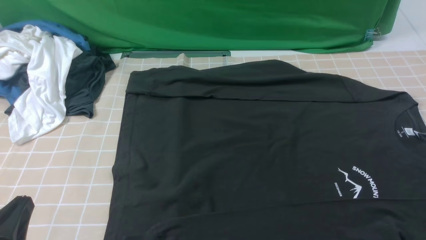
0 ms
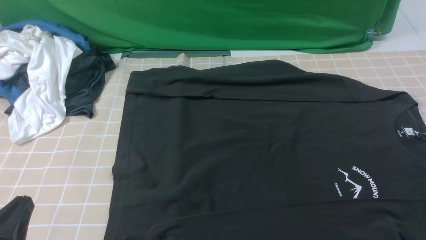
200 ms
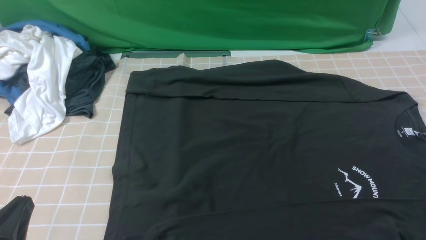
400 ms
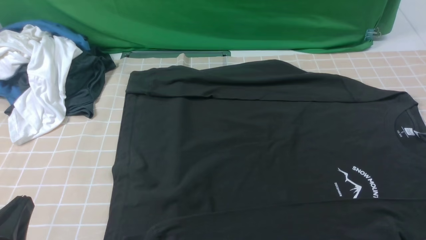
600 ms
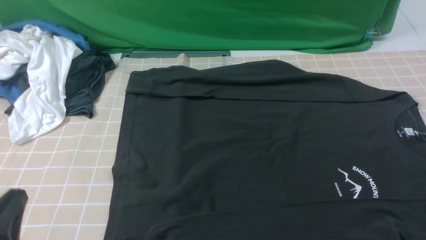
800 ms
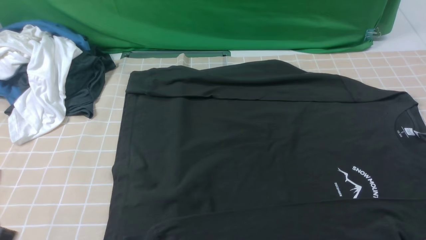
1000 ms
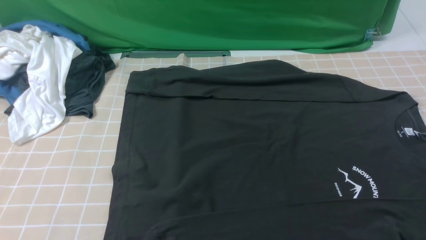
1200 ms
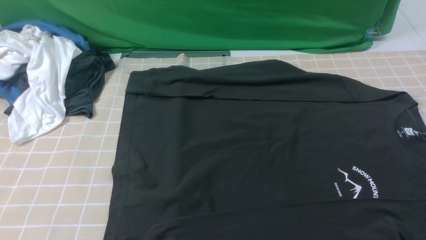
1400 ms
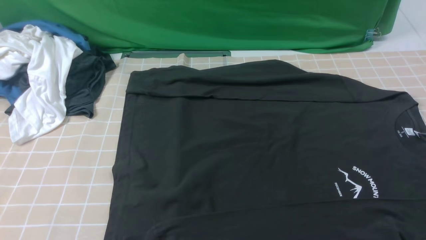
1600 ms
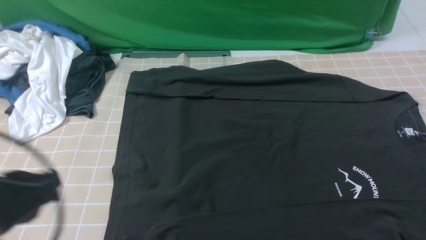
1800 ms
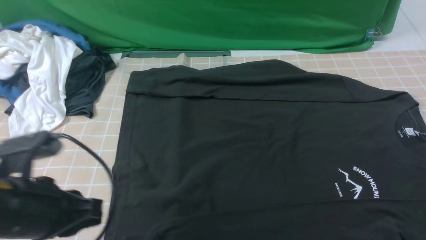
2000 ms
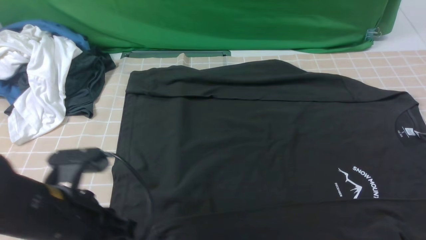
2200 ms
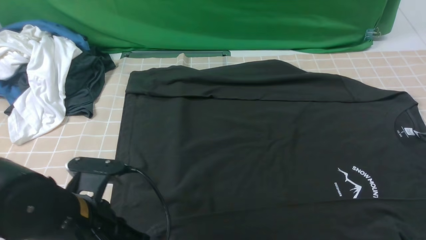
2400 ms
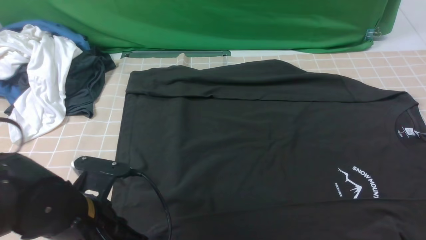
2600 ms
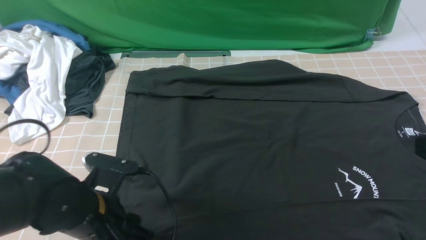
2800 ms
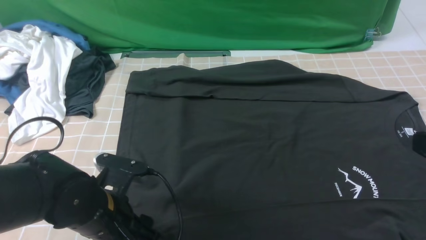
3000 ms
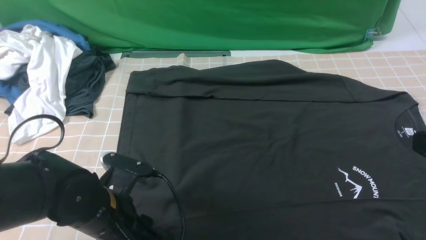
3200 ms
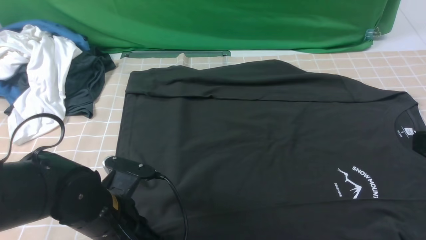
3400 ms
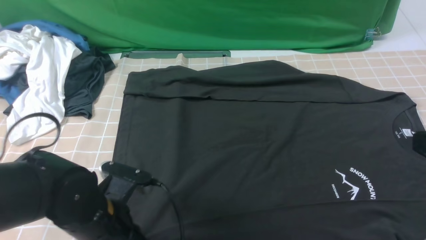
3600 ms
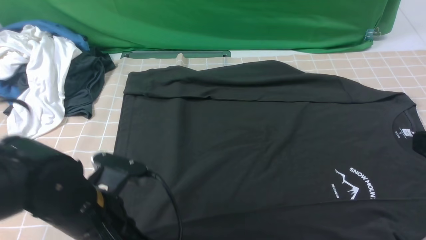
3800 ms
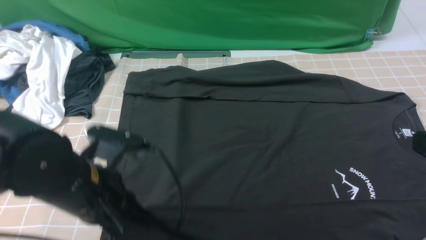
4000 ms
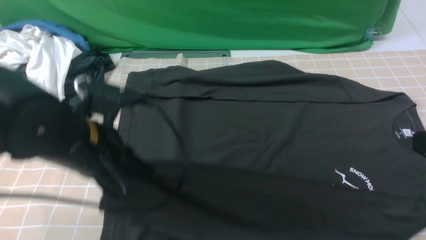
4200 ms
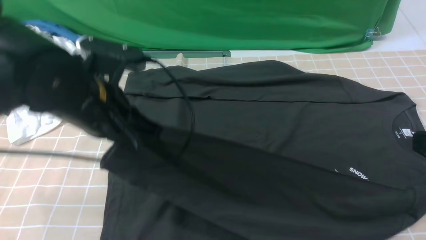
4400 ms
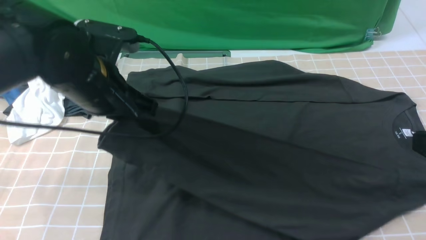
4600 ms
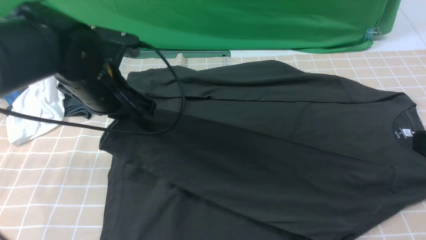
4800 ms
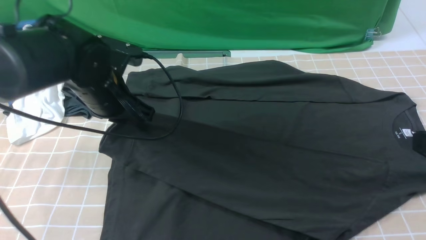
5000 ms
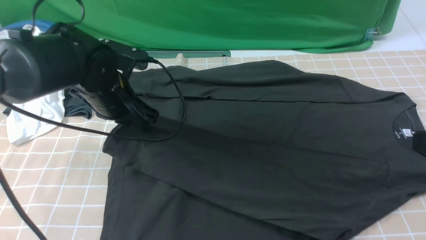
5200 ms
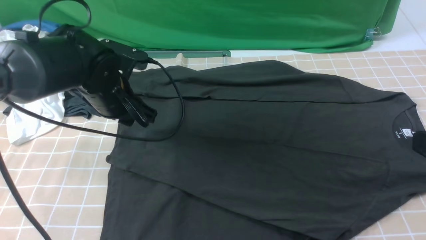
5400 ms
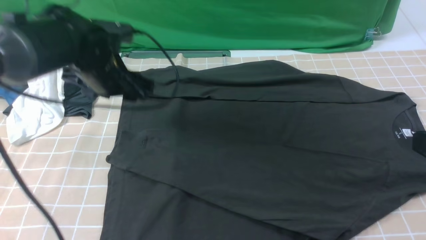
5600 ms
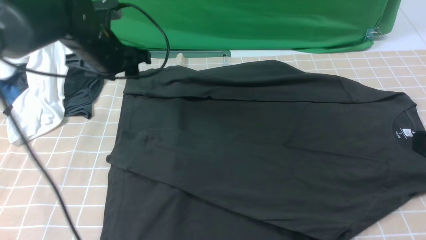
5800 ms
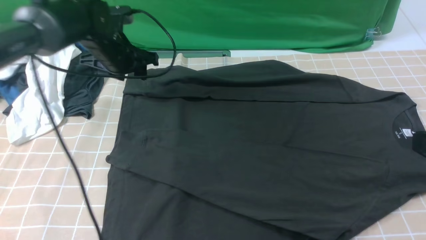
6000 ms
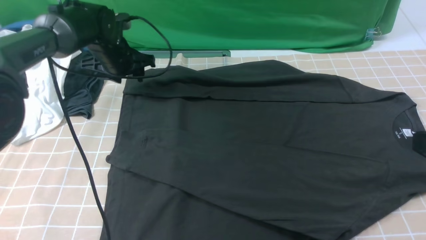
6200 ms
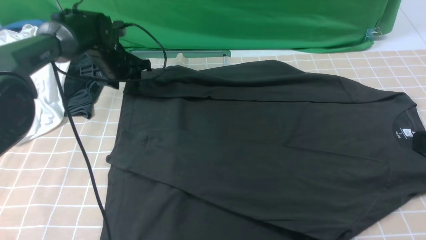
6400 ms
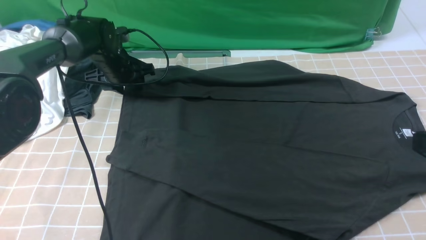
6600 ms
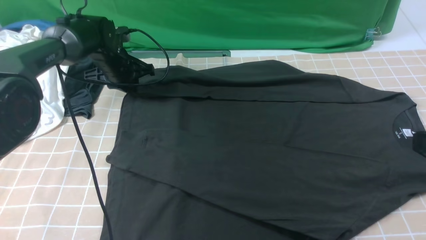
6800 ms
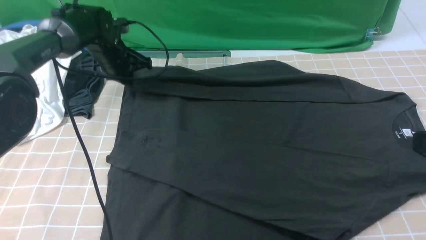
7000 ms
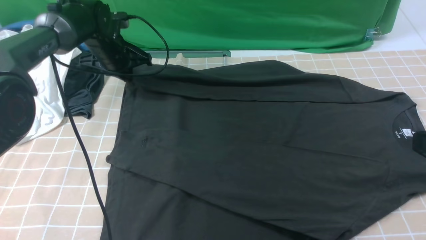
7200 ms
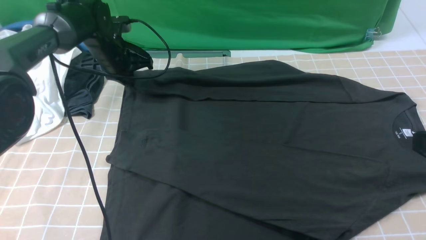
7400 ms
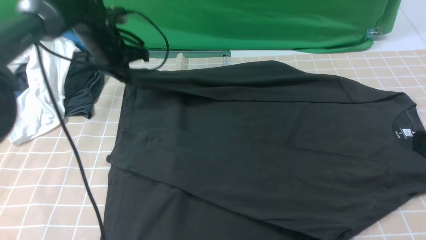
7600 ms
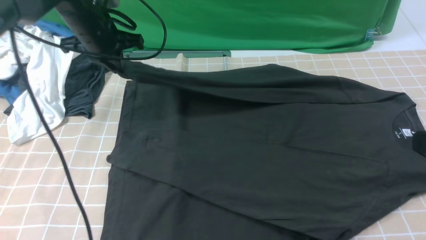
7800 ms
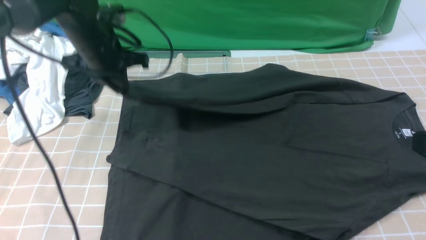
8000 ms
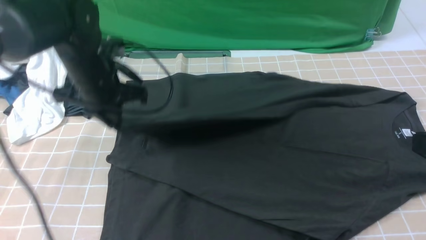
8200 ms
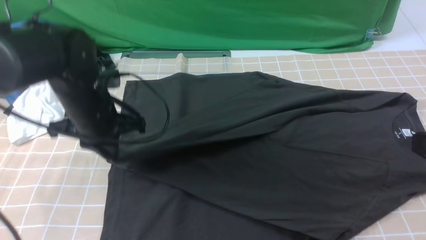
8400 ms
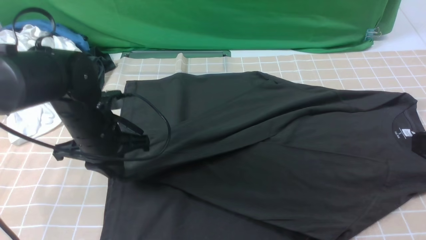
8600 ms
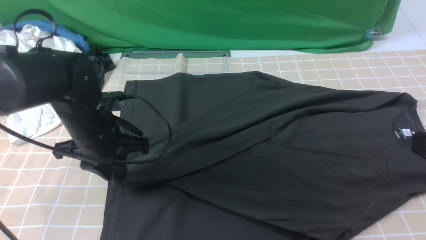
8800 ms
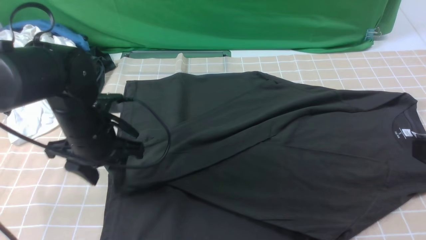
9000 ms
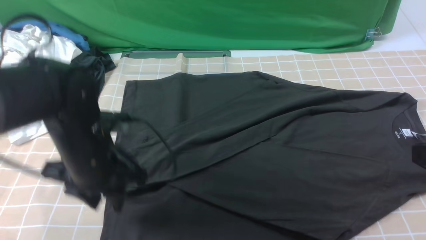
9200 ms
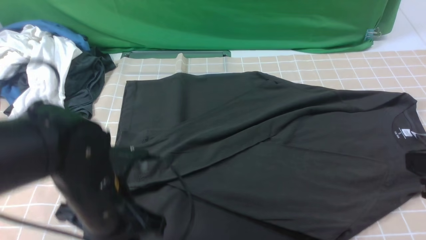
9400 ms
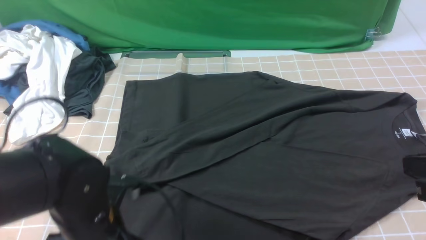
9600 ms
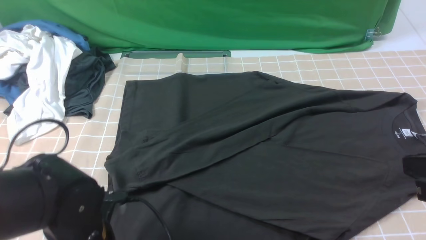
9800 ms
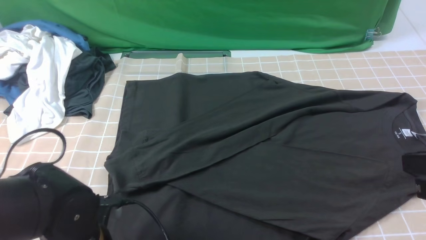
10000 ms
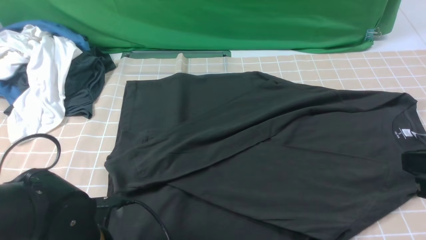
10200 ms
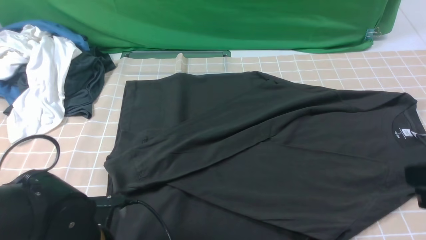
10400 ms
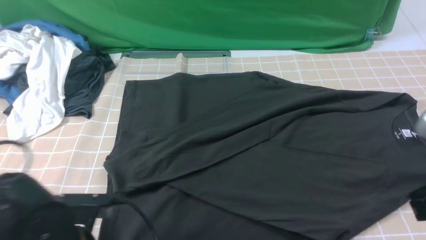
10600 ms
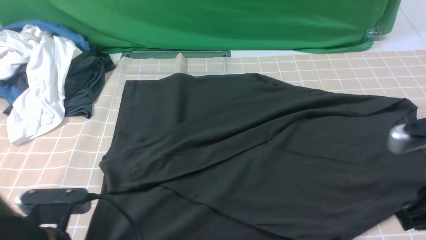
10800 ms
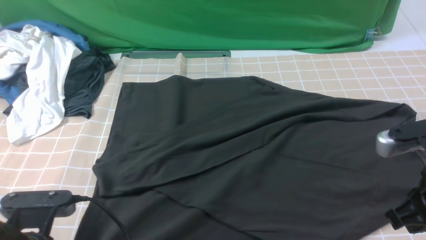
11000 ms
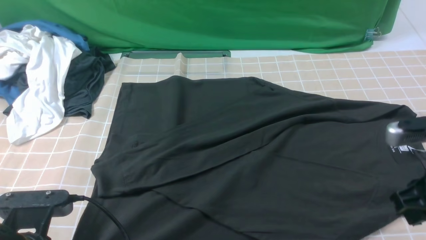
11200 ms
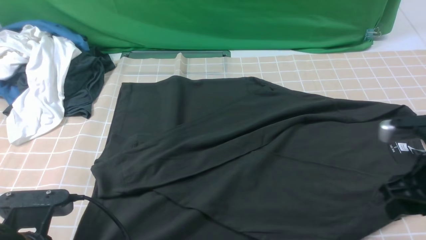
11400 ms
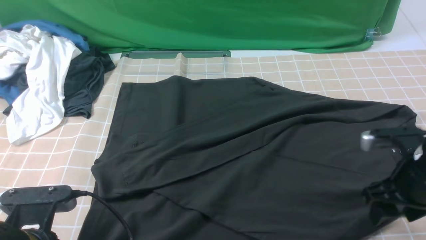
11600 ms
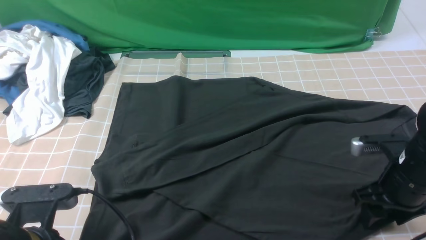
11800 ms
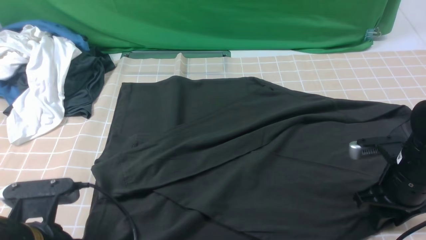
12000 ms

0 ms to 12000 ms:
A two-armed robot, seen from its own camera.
Step, 0 ms to 3800 ms: use the left arm to clamp the cuff closest to it.
Step, 4000 ms to 5400 ms: use the left arm to drag and place the cuff at the centered position on the left edge of the fabric.
Step, 5600 ms to 7000 ms: use the left arm to clamp the cuff farthest from it.
Step, 7200 ms to 9000 ms: use the left arm to drag and drop the cuff onto the cuff closest to the left arm.
0 ms to 1600 ms: The left gripper goes some 10 cm upward.
1600 ms to 3000 ms: The left gripper travels downward, forward and to the right by about 20 cm, and opens its fingers.
3000 ms to 4400 ms: The left gripper is displaced upward and forward by roughly 15 cm, and closes up.
4400 ms to 6000 ms: The left gripper moves forward, some 20 cm, and opens its fingers.
6000 ms to 7600 ms: The left gripper closes.
7600 ms to 9000 ms: The left gripper travels backward by approximately 20 cm, and opens its fingers.
9000 ms to 10400 ms: The left gripper travels backward by about 15 cm, and closes.
10400 ms to 12000 ms: The right gripper moves downward and forward, some 20 cm, and opens, while the left gripper shifts approximately 5 cm upward.

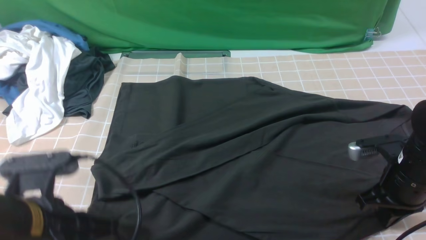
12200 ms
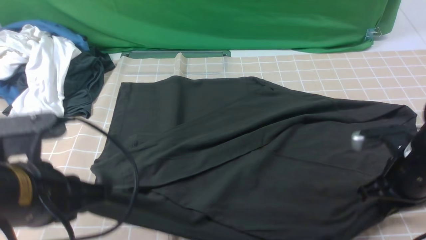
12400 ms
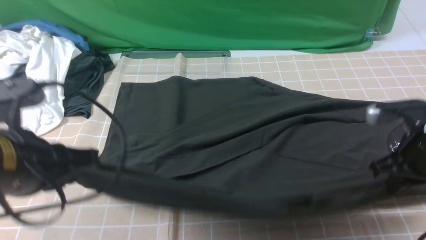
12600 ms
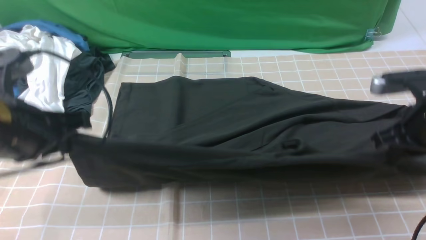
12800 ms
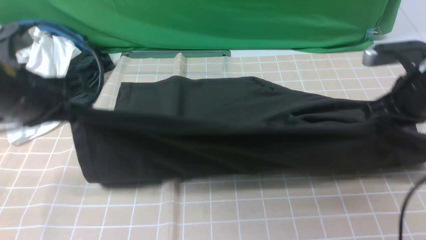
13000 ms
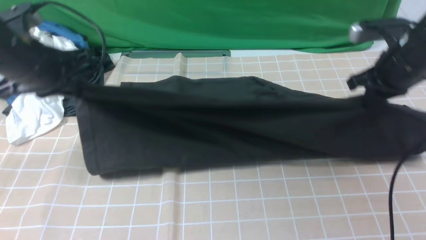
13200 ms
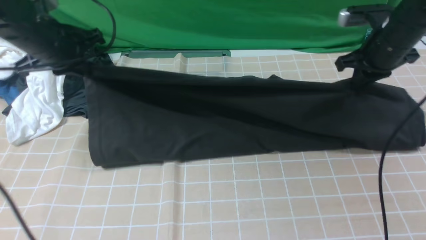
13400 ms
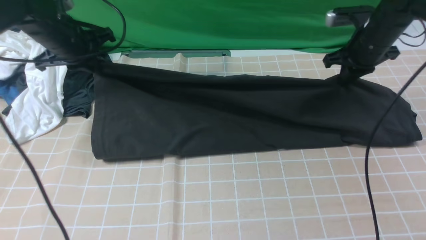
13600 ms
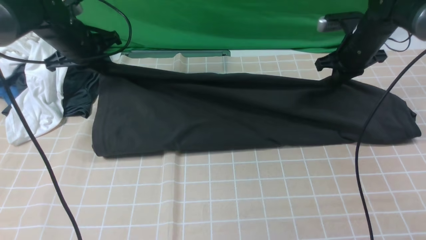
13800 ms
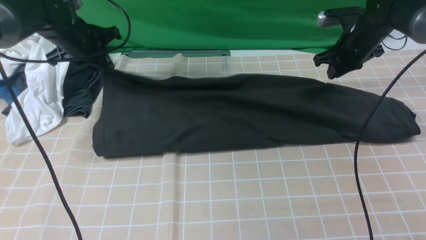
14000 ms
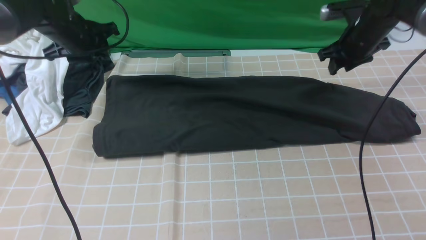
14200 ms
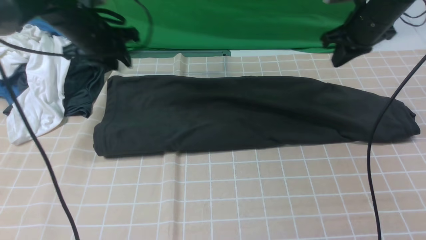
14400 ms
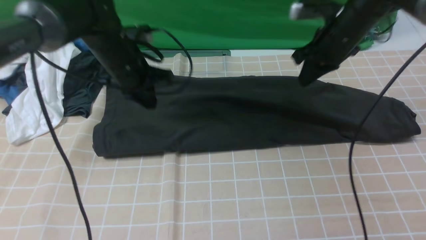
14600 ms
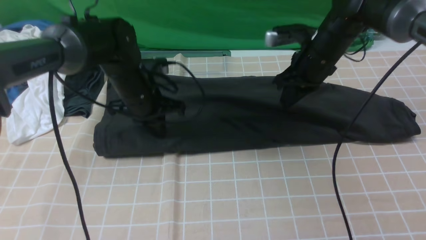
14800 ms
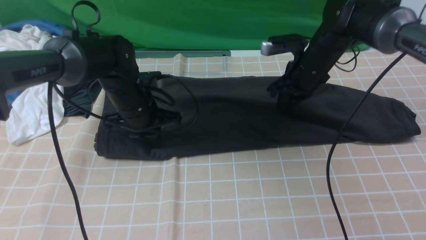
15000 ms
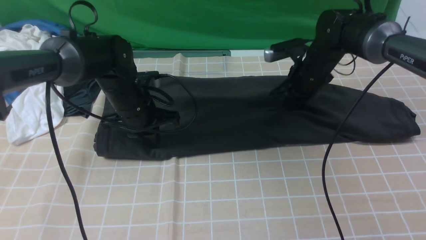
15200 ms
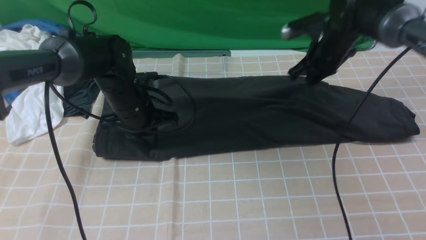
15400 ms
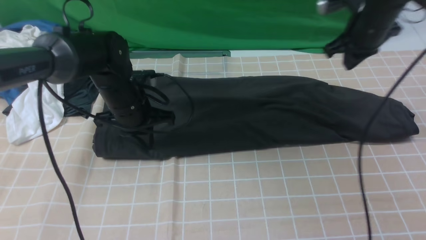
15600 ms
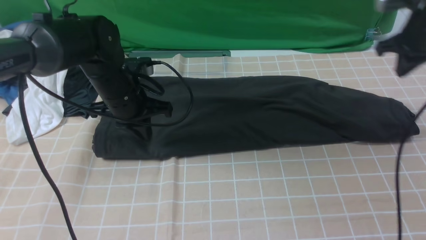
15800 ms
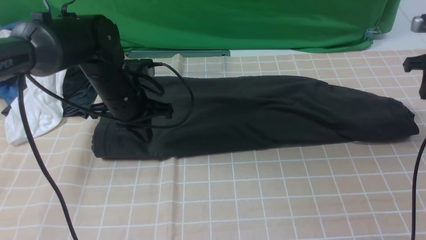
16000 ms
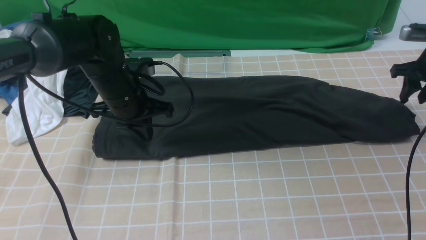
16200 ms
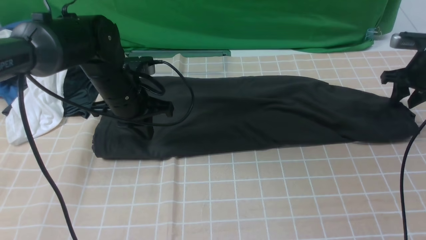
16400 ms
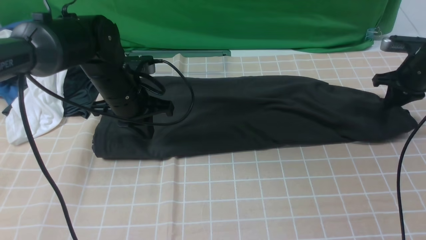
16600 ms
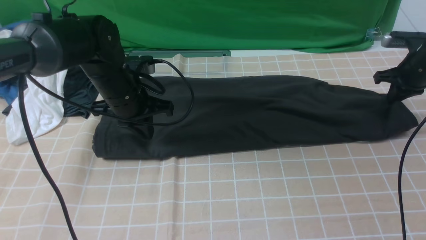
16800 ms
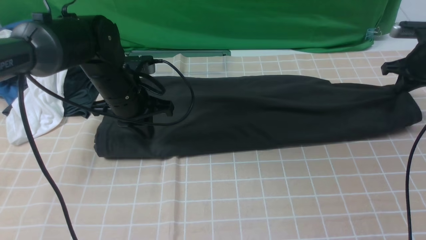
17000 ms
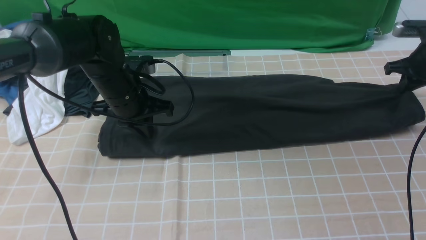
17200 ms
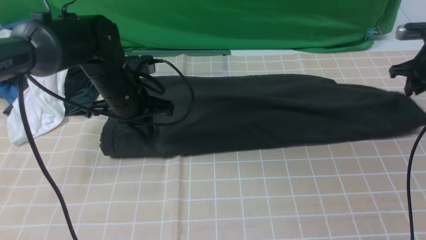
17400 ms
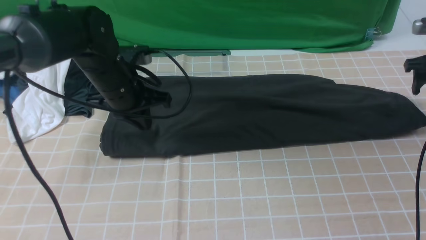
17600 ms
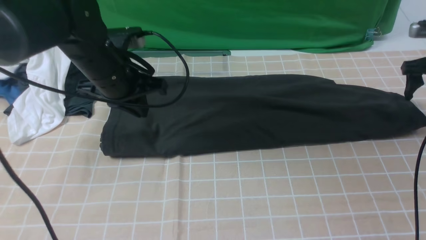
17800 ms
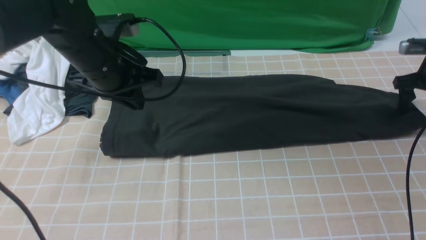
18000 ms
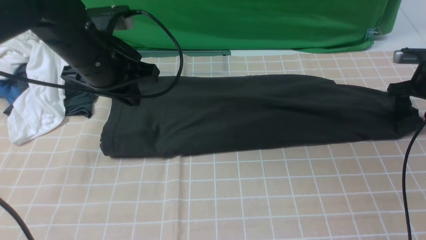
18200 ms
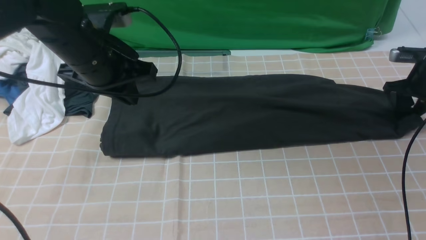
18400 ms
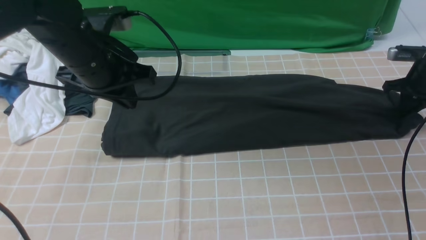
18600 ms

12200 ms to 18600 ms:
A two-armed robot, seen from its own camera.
Step, 12600 ms to 14200 ms: use both arms to drag the lower edge of the fabric forward and fold it over the upper edge.
Step, 14400 ms to 18600 ms: use the right arm to clamp the right edge of the fabric.
12200 ms to 13800 ms: The two grippers go some 30 cm forward.
13800 ms to 15400 ms: The left gripper travels to the right, backward and downward by approximately 15 cm, and opens and closes again.
15400 ms to 17000 ms: The right gripper heads to the right, covering about 20 cm, and opens, then closes again.
17000 ms to 18600 ms: The left gripper travels upward by about 10 cm. Meanwhile the right gripper opens, then closes once more.
